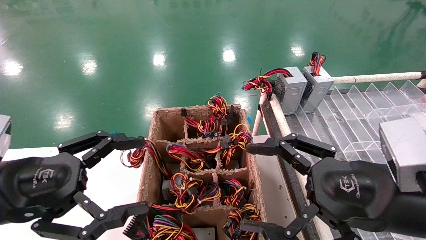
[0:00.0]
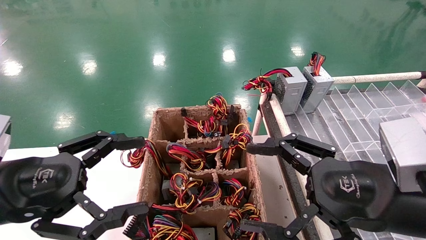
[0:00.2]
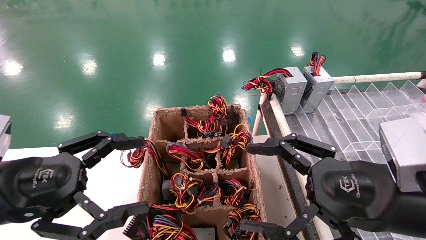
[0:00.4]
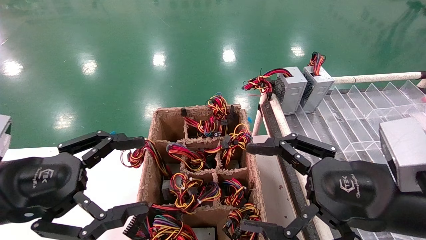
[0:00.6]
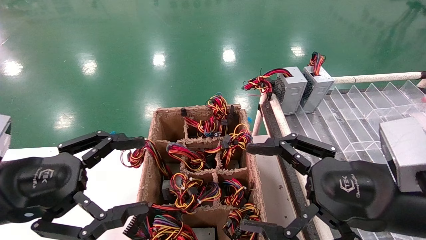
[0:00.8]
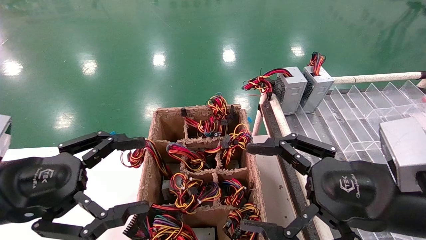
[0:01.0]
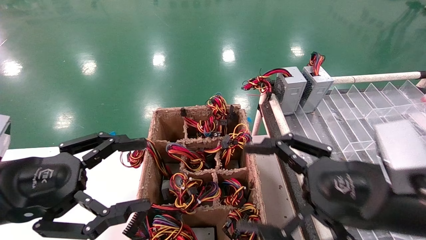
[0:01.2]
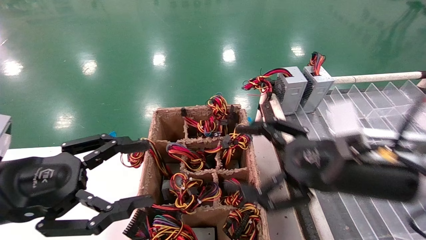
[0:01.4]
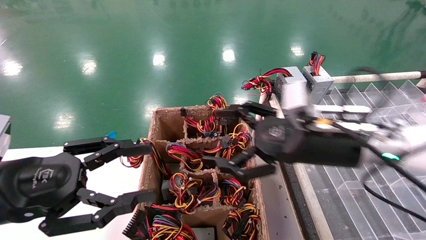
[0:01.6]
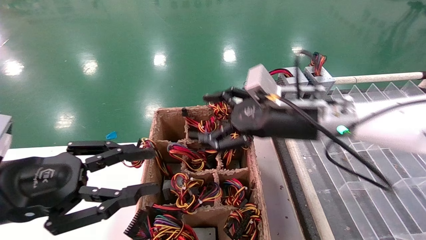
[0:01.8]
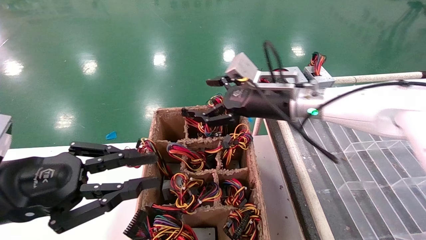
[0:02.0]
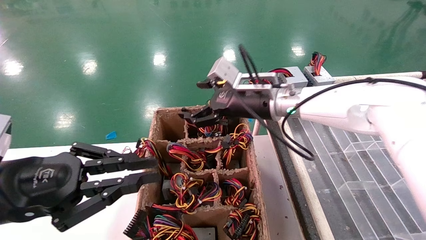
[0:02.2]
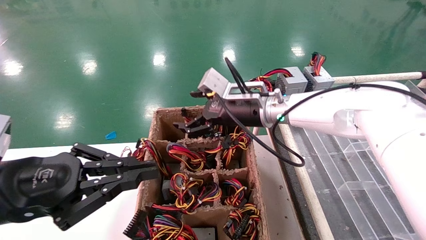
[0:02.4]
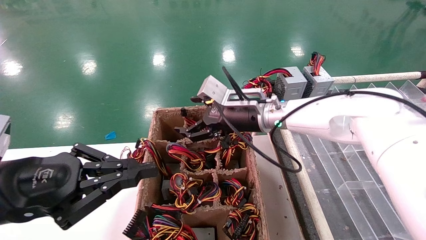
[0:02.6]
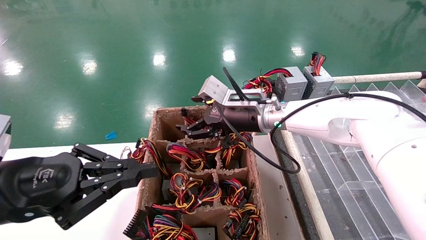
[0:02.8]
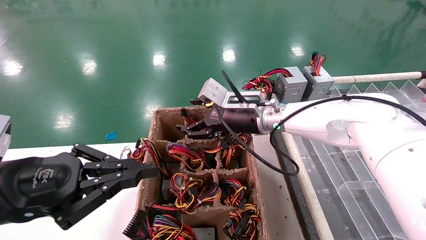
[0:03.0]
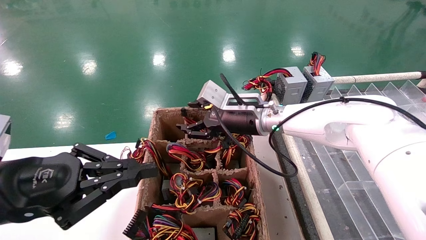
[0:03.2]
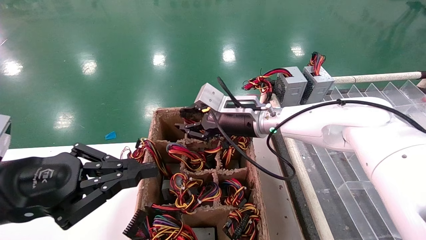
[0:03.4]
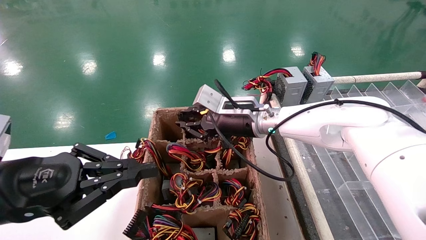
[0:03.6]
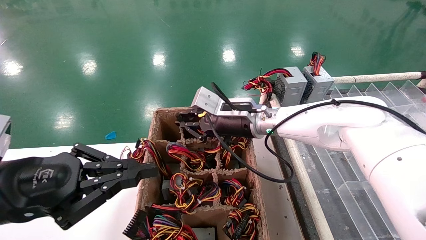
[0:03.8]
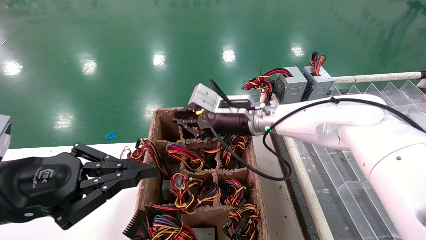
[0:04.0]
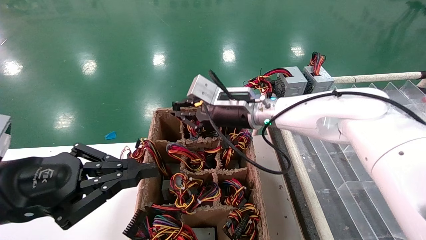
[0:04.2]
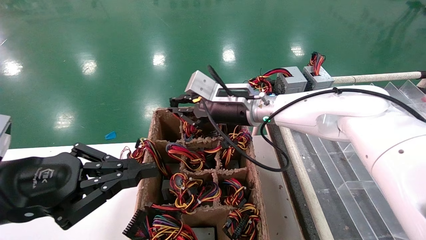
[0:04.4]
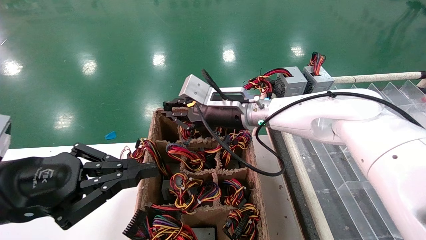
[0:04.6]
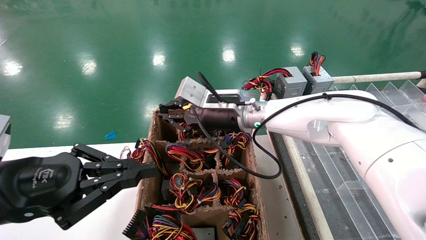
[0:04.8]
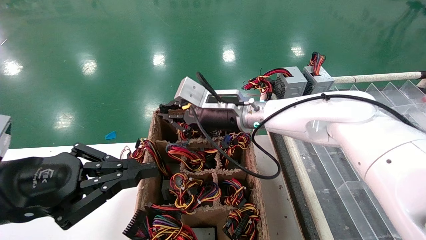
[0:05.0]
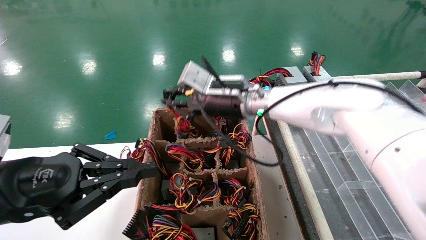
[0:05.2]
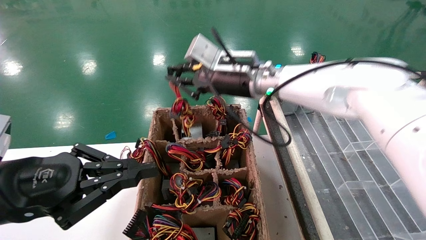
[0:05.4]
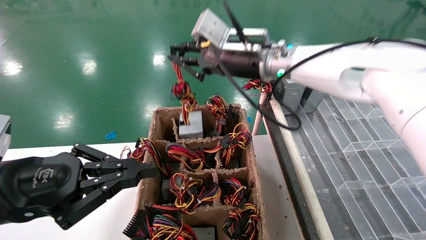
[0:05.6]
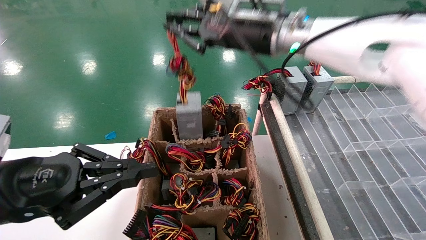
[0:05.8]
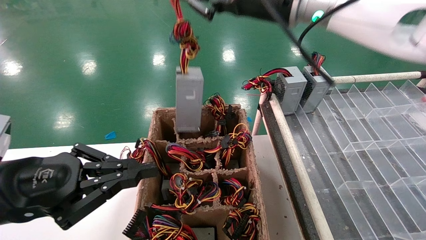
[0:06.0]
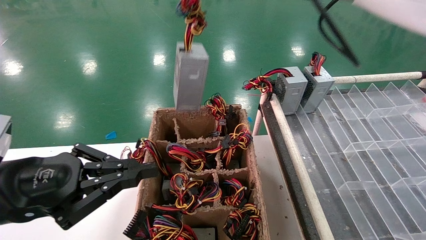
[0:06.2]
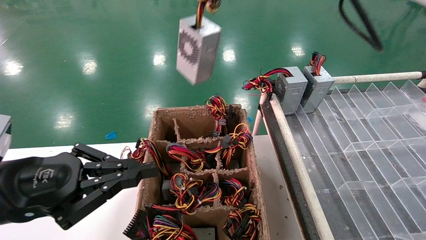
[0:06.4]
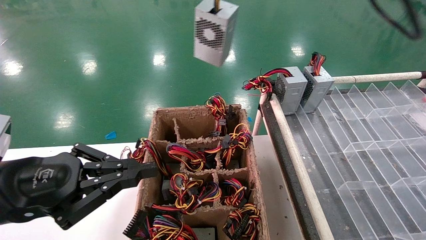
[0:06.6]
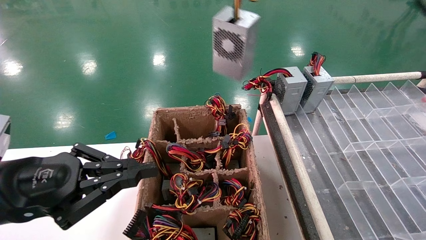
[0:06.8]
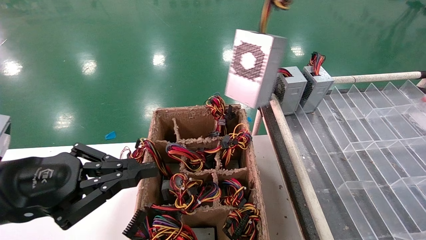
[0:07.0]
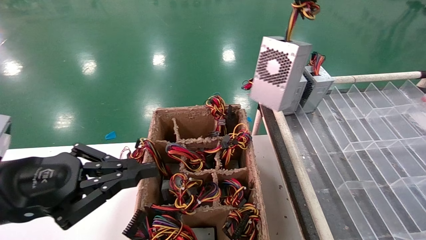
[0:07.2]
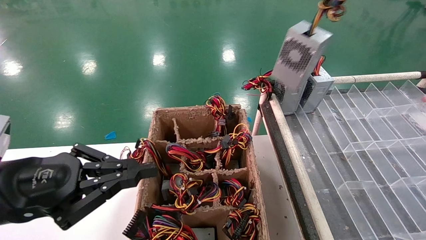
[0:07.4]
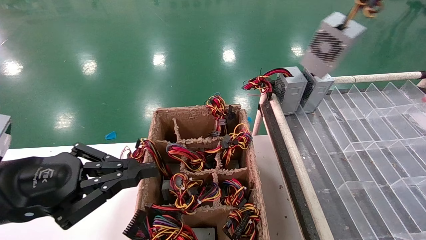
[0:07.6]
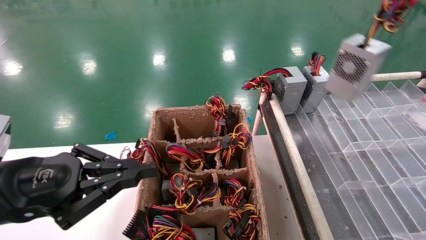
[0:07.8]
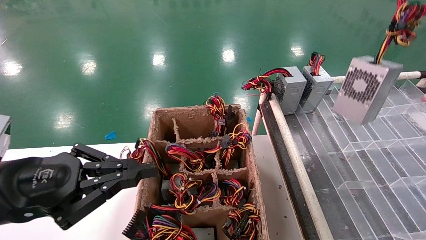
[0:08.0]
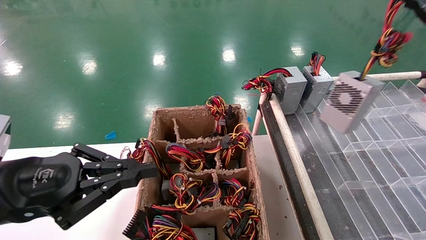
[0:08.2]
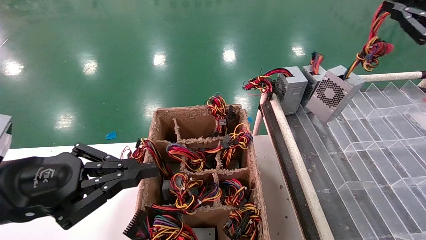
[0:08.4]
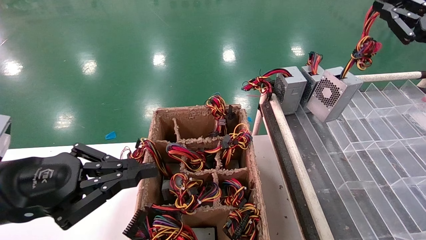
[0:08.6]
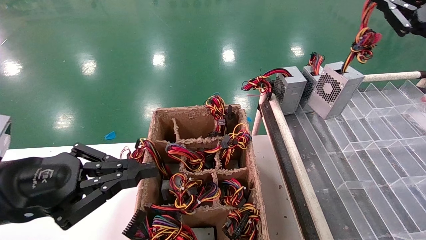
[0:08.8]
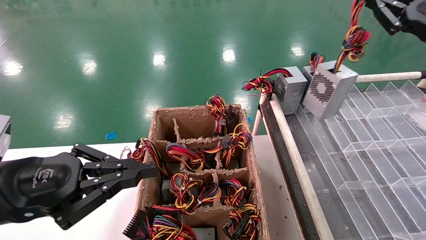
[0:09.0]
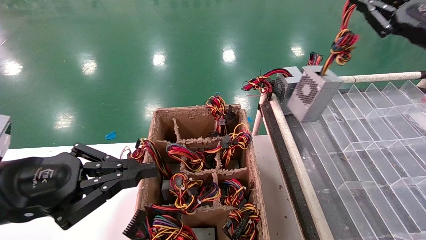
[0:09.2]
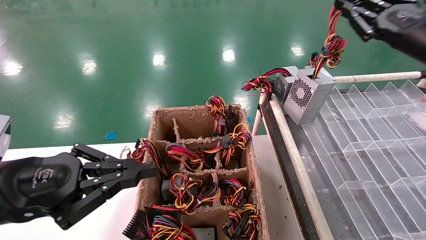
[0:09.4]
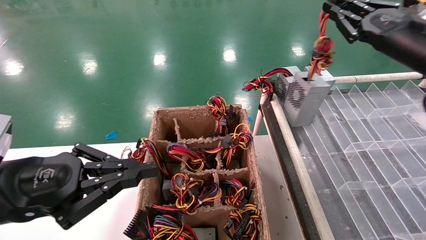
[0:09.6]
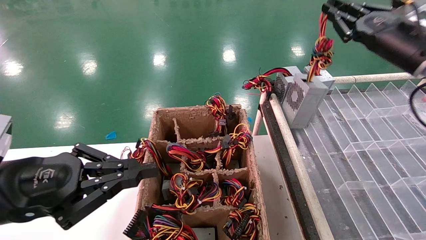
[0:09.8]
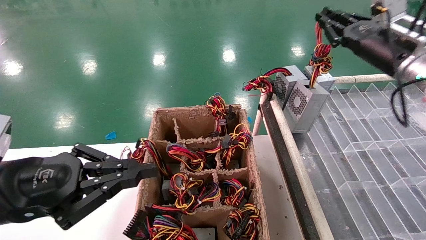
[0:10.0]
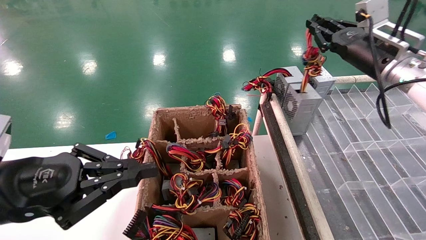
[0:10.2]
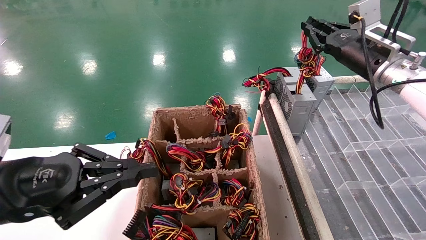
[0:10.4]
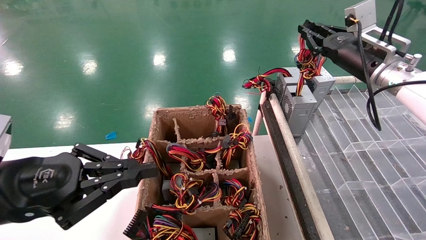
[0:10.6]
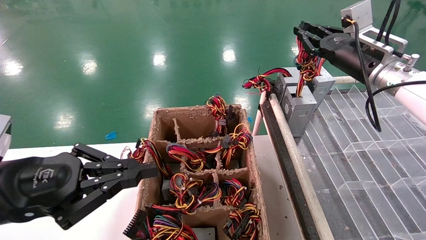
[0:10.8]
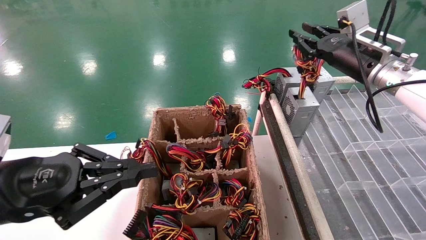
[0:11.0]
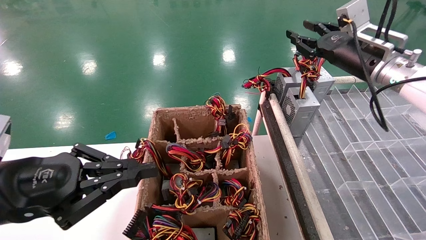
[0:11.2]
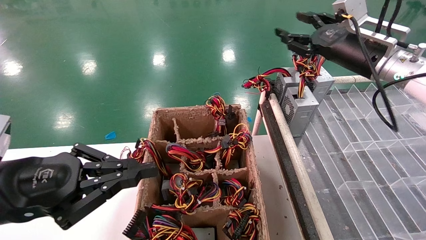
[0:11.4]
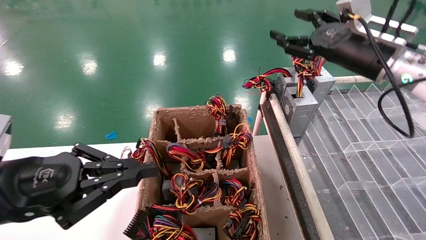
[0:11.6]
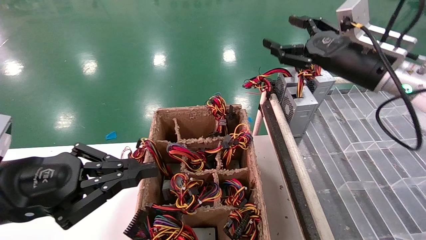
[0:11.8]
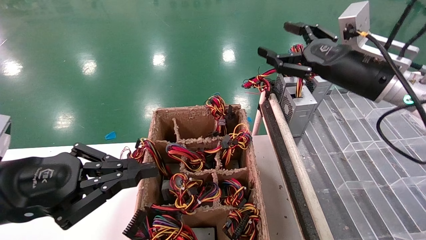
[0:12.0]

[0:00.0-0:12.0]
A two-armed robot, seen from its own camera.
Step, 0:01.6 to 0:03.8: Grab the main unit power supply from the containment box.
Step, 0:04.0 to 0:11.4: Place the main unit power supply in the designated area.
0:00.0 to 0:01.6: The right gripper moves forward, about 15 cm.
0:01.6 to 0:03.0: The right gripper goes about 15 cm forward and to the left, while the left gripper closes its fingers.
0:03.0 to 0:04.4: The right gripper closes its fingers.
0:04.4 to 0:06.0: The right gripper is displaced upward by roughly 20 cm.
0:06.0 to 0:07.6: The right gripper goes roughly 30 cm to the right.
0:07.6 to 0:09.0: The right gripper goes about 10 cm downward and forward.
0:09.0 to 0:10.4: The right gripper goes some 15 cm forward and to the left.
0:10.4 to 0:12.0: The right gripper travels backward and to the left by some 10 cm, and opens.

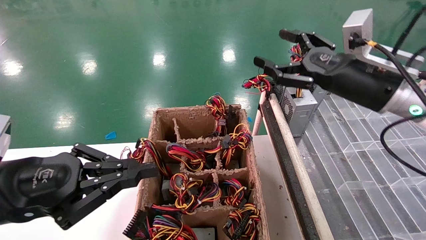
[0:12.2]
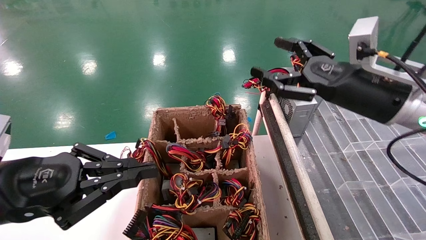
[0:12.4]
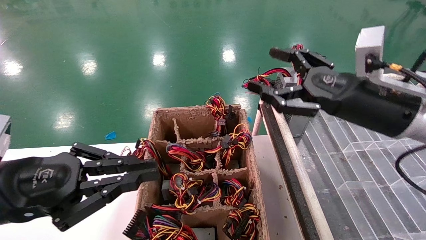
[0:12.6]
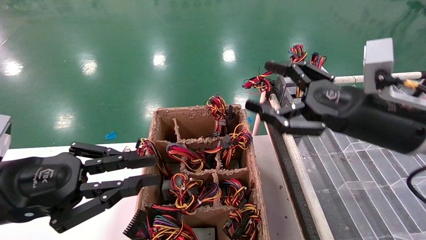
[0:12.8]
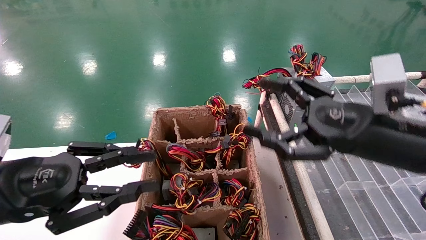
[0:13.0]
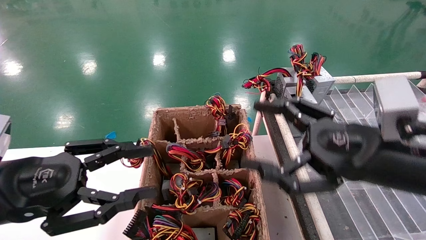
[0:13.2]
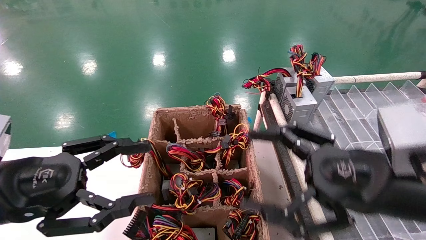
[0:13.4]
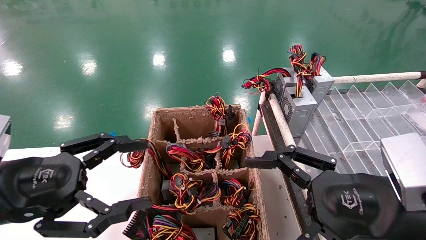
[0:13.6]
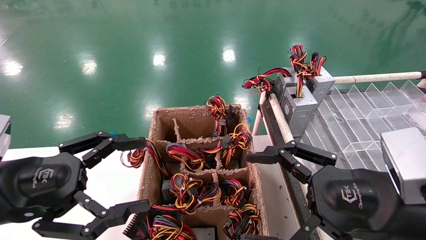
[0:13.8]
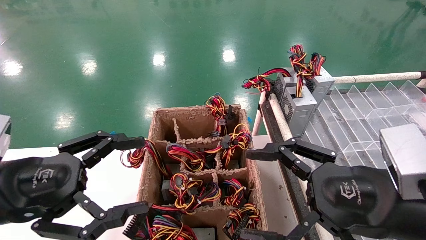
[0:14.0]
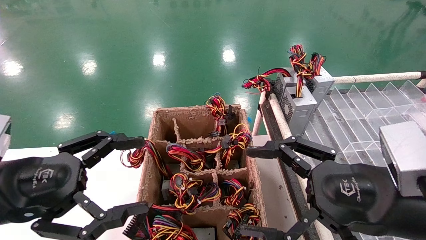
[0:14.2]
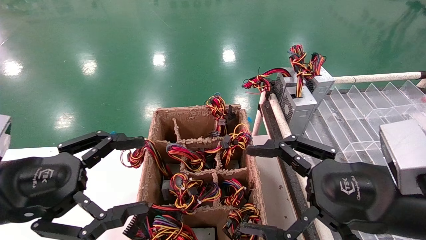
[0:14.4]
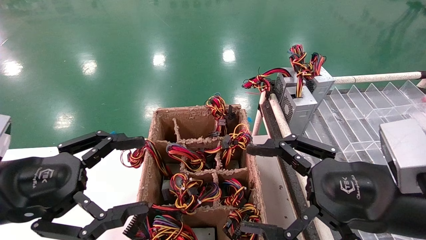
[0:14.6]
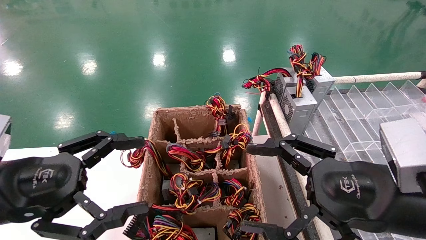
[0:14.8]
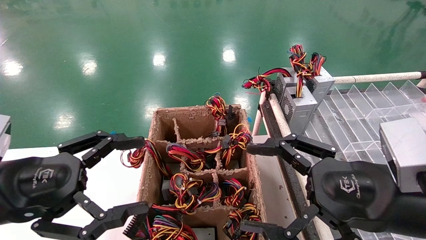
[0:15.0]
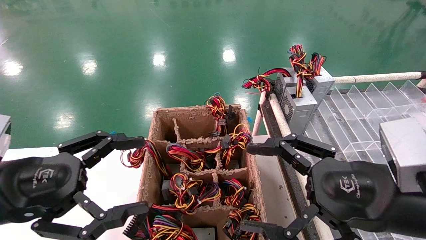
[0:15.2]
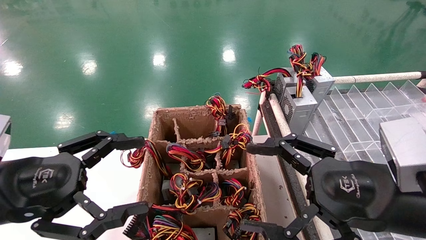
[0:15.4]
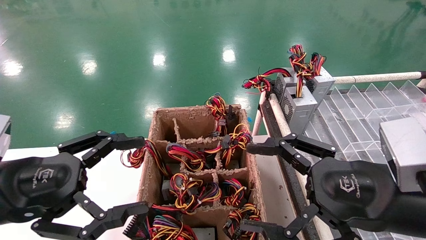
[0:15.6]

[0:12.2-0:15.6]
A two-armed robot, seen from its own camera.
0:12.2 to 0:13.8: The right gripper goes roughly 20 cm backward and downward, while the left gripper opens its fingers.
0:13.8 to 0:15.6: Both grippers stay put.

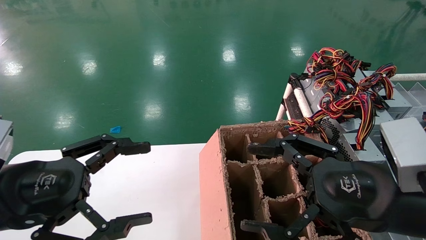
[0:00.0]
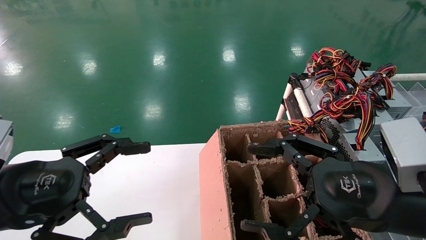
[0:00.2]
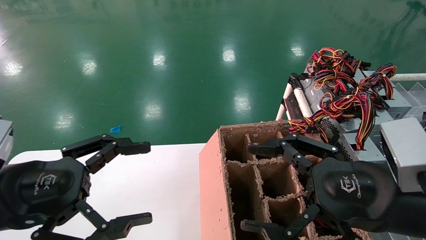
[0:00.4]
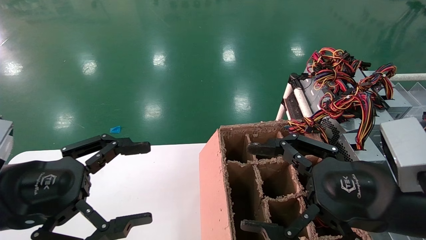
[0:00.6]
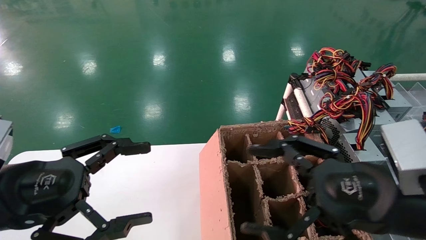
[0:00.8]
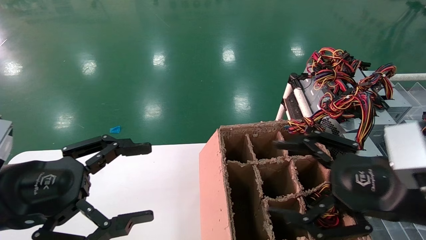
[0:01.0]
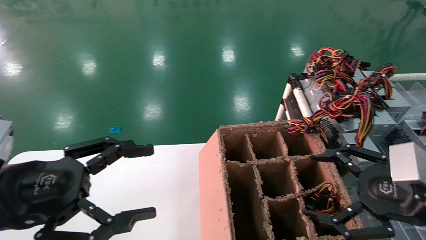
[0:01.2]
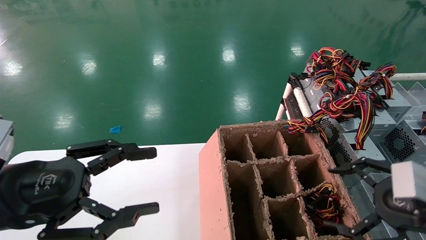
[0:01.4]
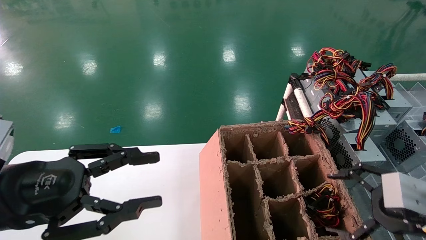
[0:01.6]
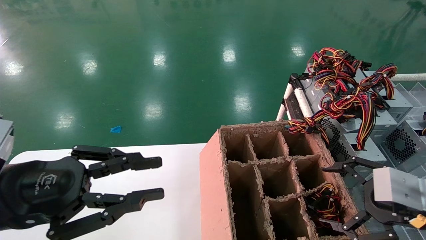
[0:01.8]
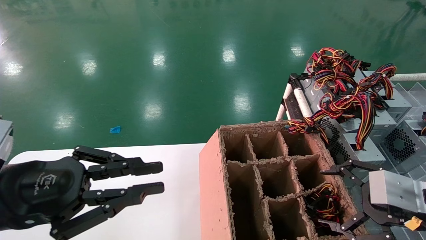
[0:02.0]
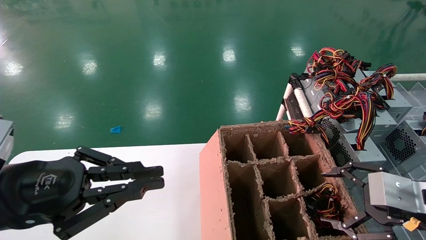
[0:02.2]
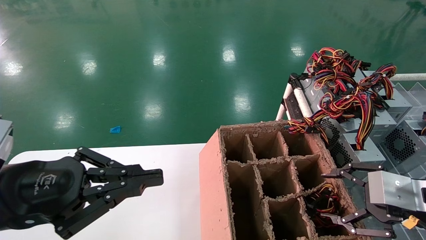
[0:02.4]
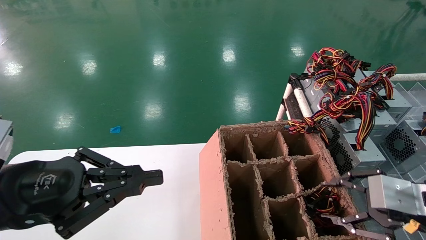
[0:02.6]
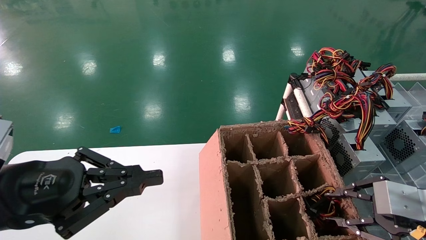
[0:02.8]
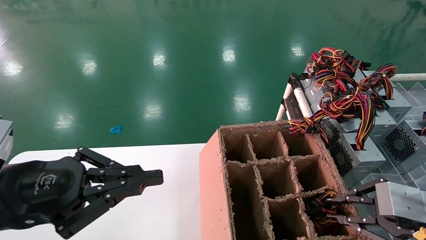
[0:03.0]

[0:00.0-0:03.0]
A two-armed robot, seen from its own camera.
0:00.0 to 0:01.6: The right gripper goes roughly 10 cm to the right. Meanwhile the left gripper closes.
0:01.6 to 0:03.0: The left gripper closes up. Meanwhile the right gripper closes up.
